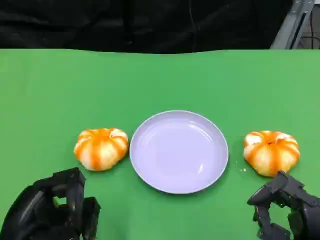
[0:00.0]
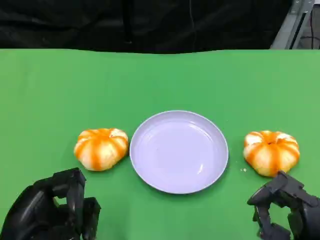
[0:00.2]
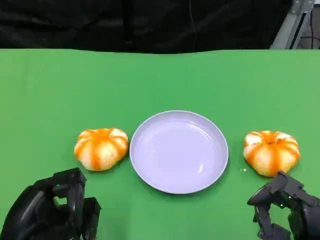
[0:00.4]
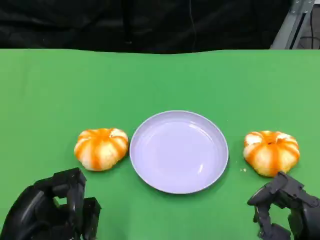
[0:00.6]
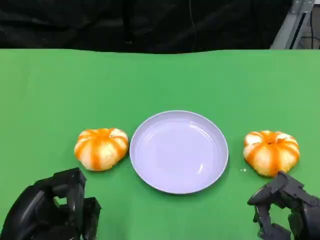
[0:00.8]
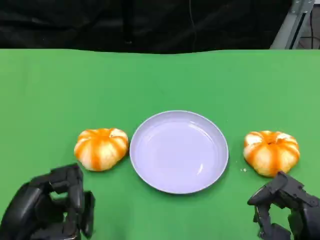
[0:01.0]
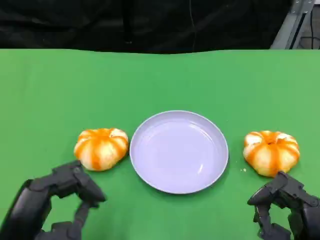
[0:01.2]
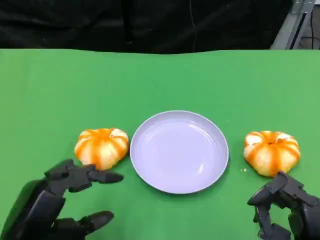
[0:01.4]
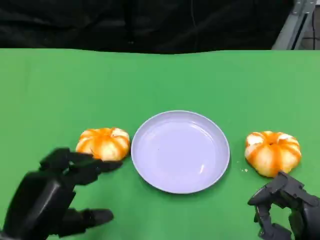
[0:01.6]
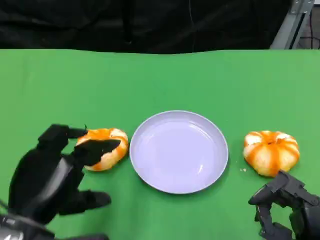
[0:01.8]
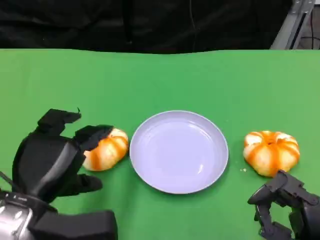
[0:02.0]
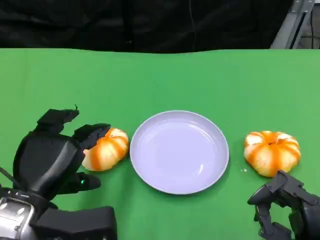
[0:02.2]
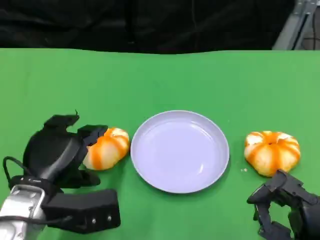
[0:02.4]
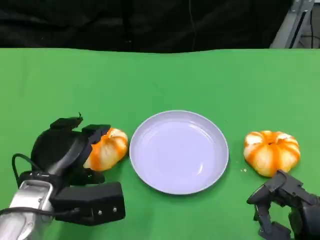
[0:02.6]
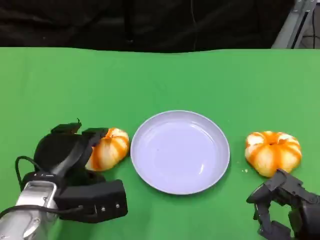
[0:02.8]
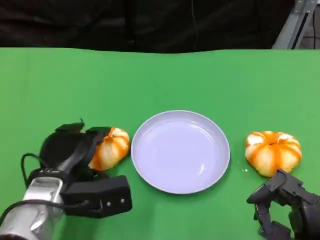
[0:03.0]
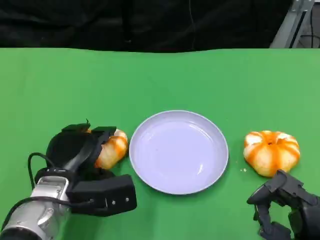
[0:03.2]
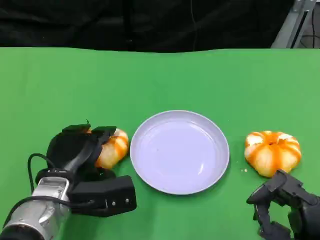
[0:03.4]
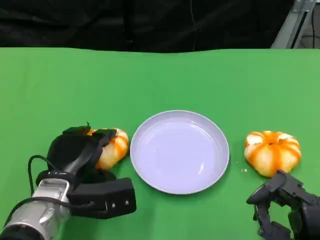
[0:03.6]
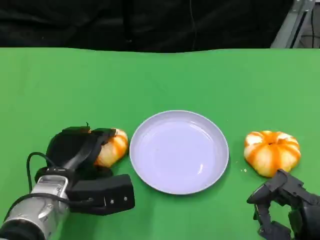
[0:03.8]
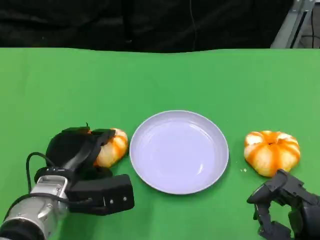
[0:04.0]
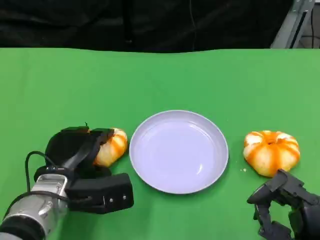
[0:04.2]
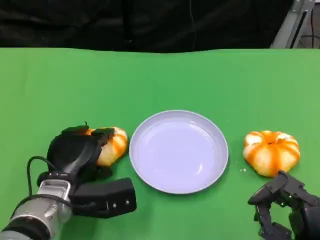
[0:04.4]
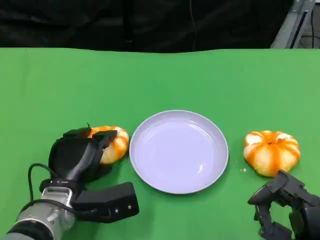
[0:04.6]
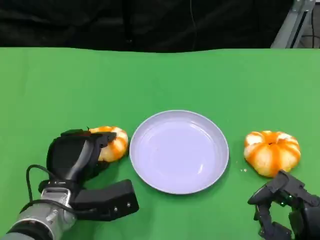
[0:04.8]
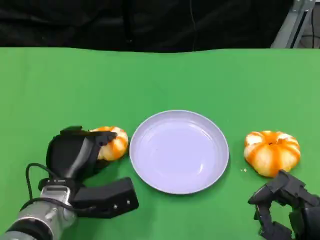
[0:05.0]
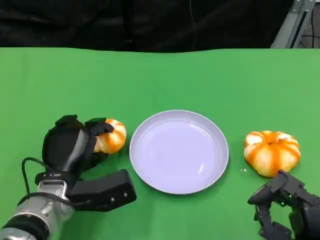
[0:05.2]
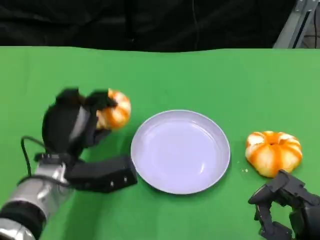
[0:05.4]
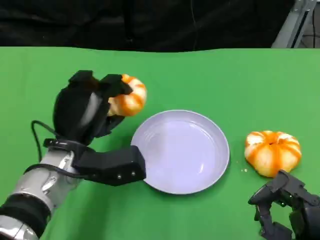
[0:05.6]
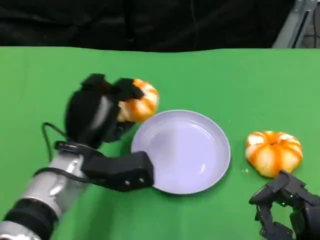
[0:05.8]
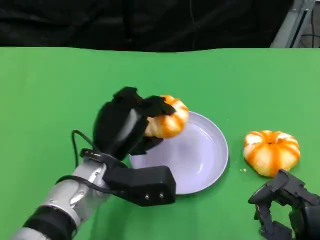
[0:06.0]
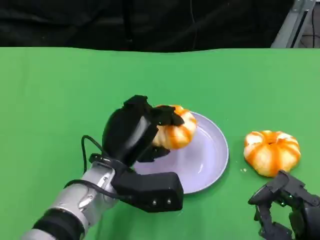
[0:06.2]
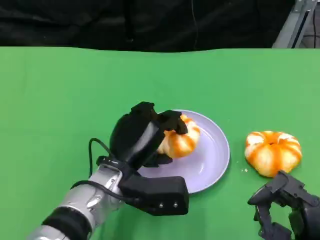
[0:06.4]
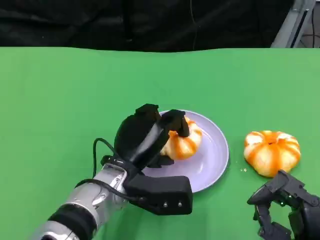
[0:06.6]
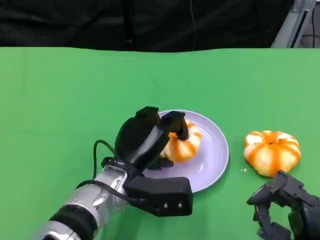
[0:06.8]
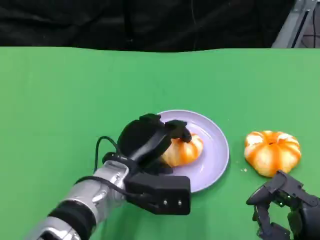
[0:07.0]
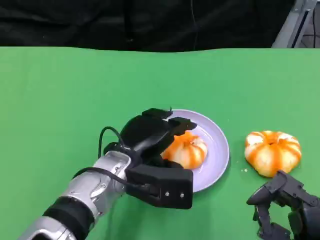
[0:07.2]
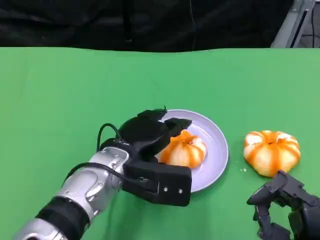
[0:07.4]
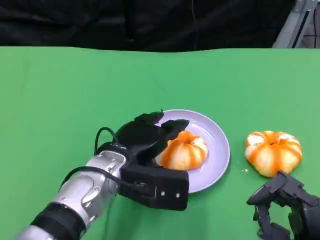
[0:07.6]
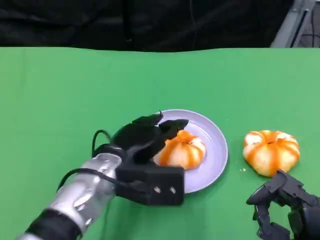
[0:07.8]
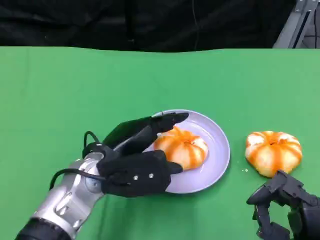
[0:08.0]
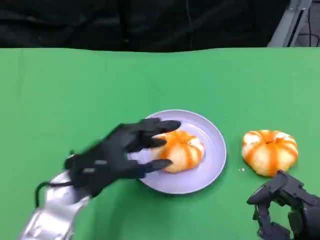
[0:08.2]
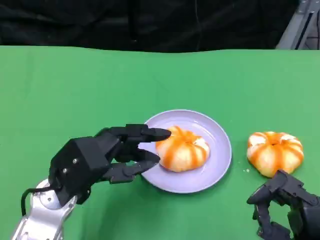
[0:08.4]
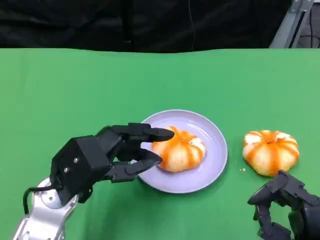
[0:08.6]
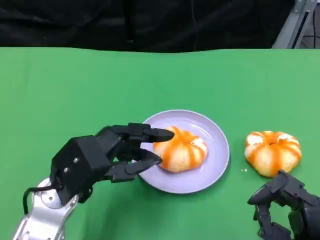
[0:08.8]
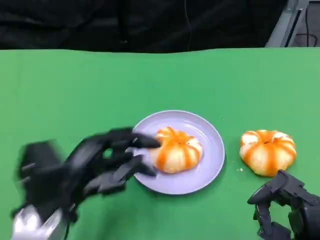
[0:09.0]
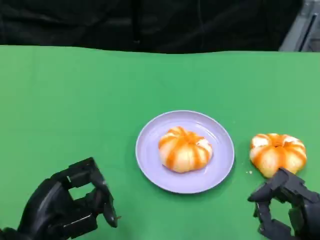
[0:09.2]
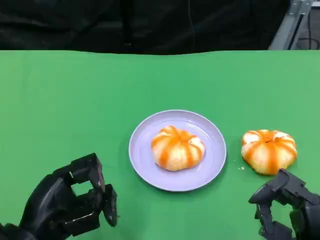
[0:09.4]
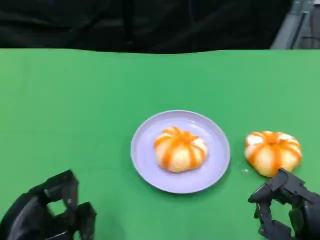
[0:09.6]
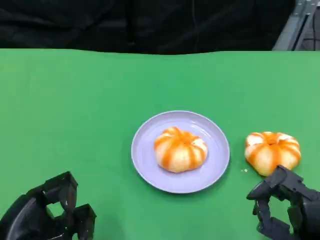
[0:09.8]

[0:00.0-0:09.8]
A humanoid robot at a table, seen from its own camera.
Task of the whole recording: Grasp the bread from the table and place it into the plate.
0:01.4 to 0:02.8: The left hand heads forward, covering some 10 cm.
0:02.8 to 0:04.2: The hands stay close to where they were, moving slightly.
0:04.2 to 0:05.6: The left hand heads upward, covering roughly 5 cm.
0:05.6 to 0:07.0: The left hand moves to the right, some 5 cm.
0:07.0 to 0:08.4: The left hand goes about 10 cm to the left.
0:08.4 to 0:09.8: The left hand travels backward and to the left by approximately 15 cm.

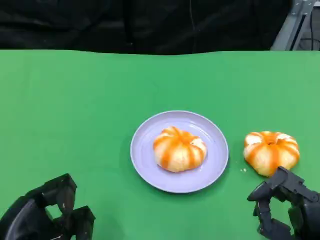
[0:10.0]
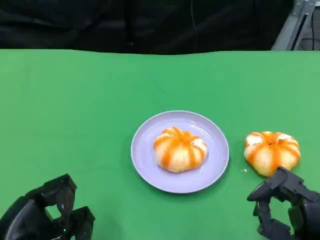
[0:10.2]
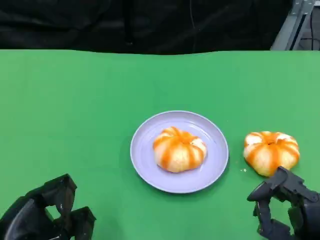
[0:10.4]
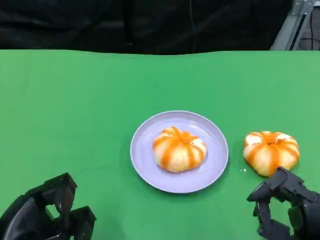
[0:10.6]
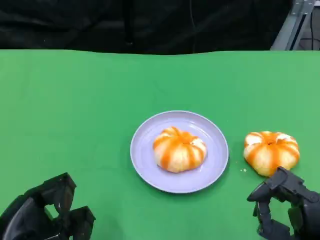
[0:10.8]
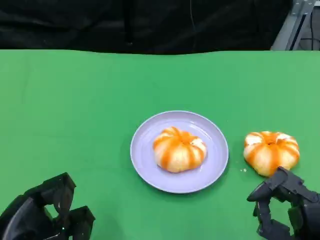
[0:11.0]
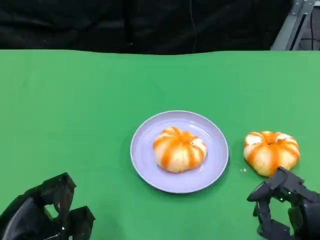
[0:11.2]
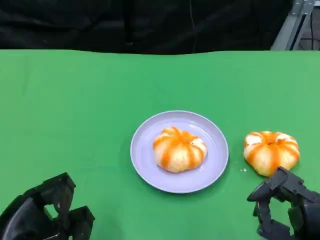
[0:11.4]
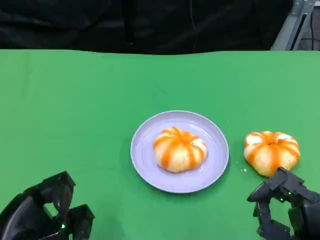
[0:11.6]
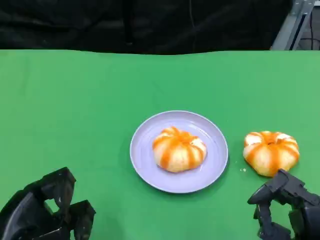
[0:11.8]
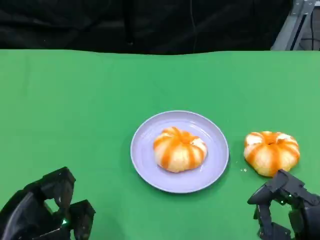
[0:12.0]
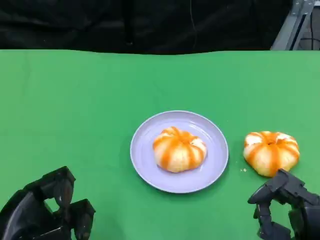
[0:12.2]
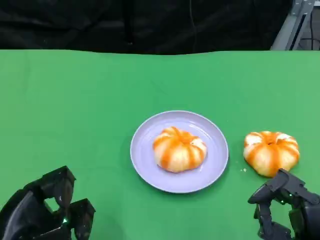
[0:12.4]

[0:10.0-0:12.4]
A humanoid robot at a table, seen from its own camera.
Task of the whole recording: Grasp the bread from the table and place it into the plate.
0:10.0 to 0:12.4: The two hands keep their place.

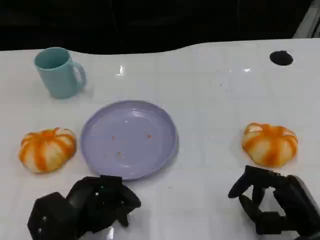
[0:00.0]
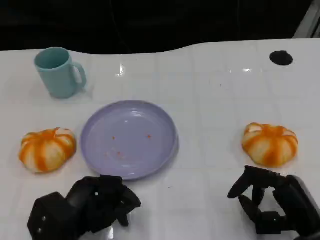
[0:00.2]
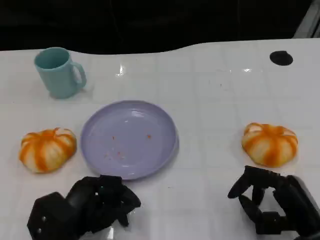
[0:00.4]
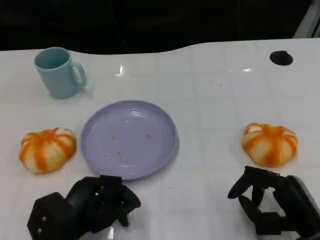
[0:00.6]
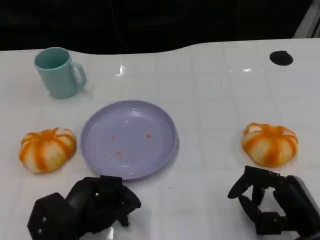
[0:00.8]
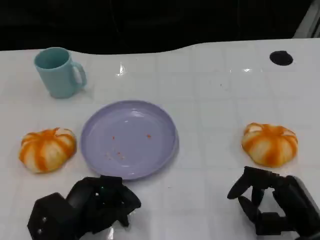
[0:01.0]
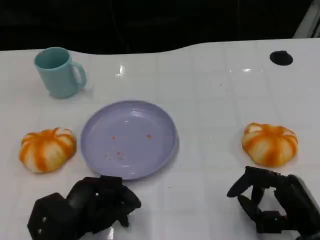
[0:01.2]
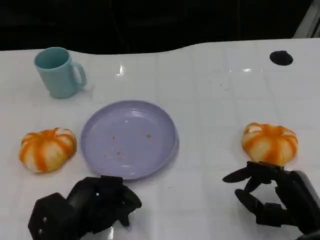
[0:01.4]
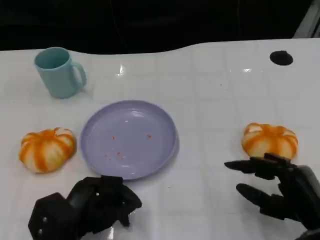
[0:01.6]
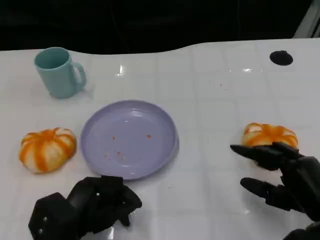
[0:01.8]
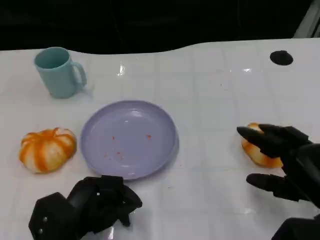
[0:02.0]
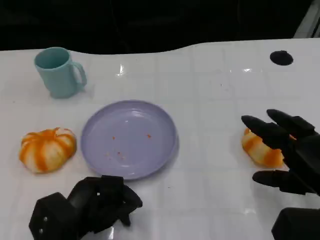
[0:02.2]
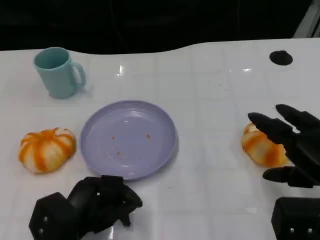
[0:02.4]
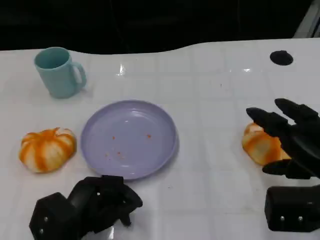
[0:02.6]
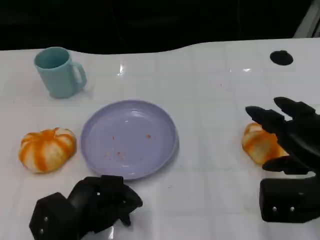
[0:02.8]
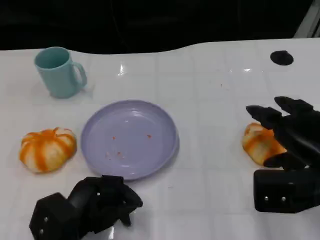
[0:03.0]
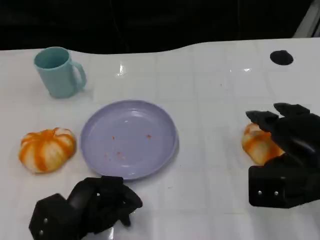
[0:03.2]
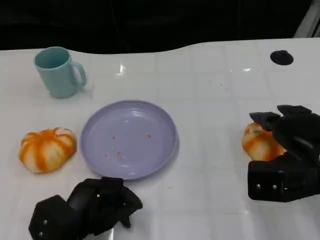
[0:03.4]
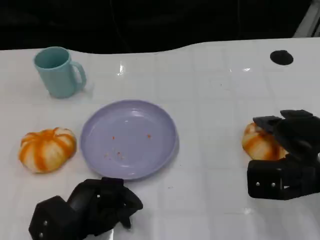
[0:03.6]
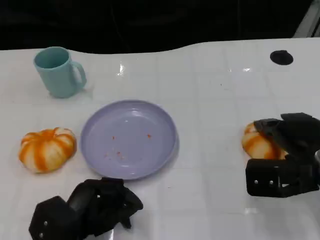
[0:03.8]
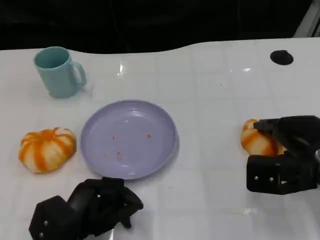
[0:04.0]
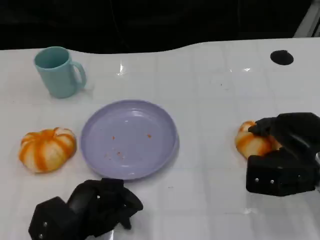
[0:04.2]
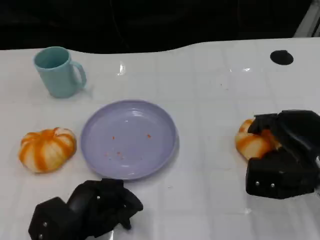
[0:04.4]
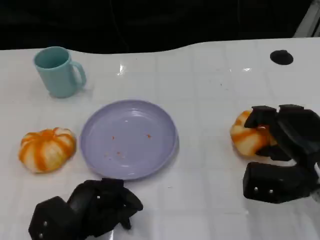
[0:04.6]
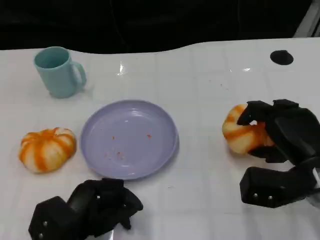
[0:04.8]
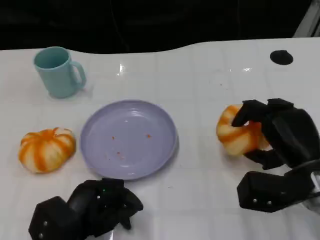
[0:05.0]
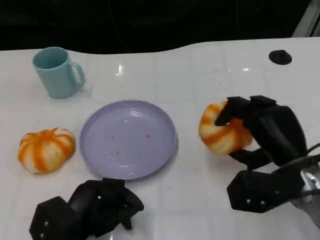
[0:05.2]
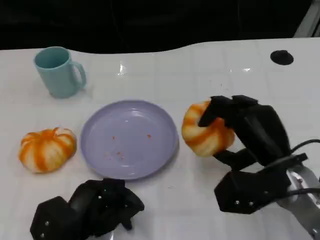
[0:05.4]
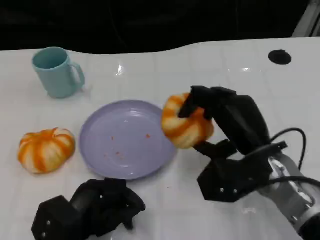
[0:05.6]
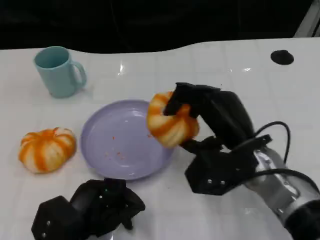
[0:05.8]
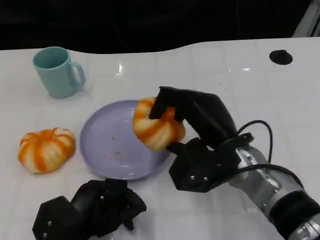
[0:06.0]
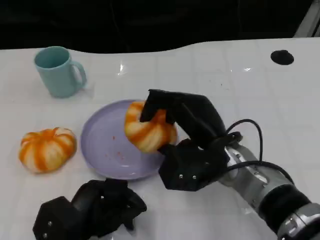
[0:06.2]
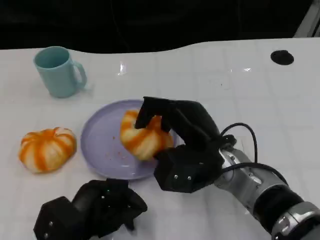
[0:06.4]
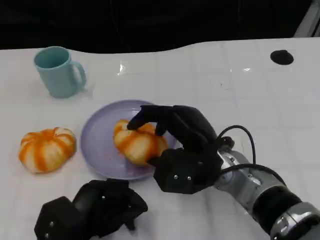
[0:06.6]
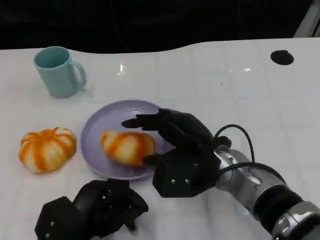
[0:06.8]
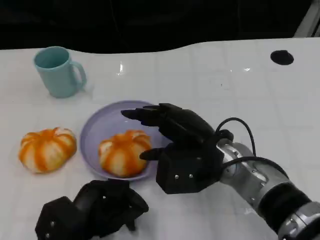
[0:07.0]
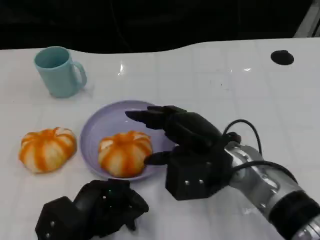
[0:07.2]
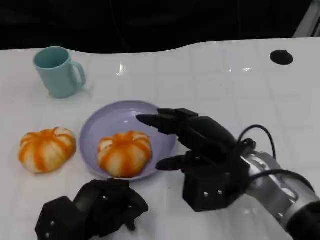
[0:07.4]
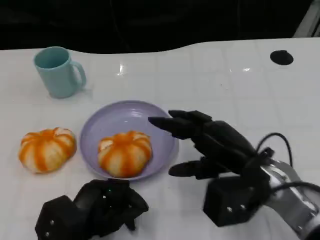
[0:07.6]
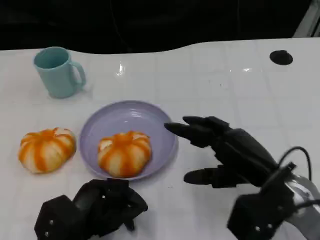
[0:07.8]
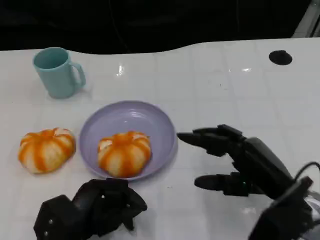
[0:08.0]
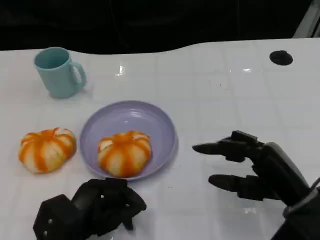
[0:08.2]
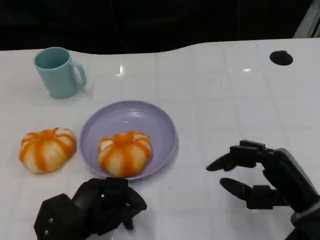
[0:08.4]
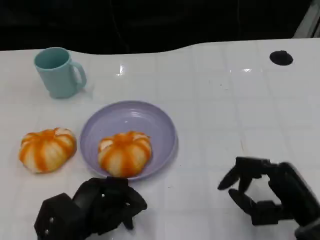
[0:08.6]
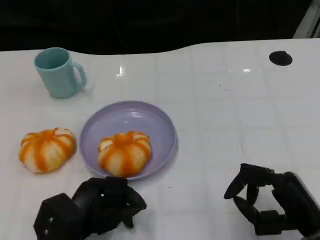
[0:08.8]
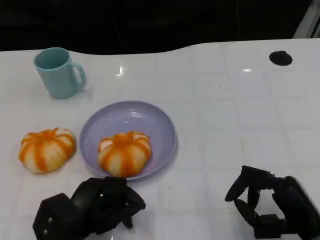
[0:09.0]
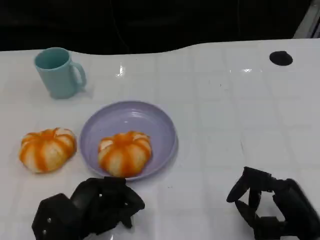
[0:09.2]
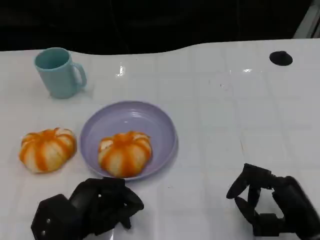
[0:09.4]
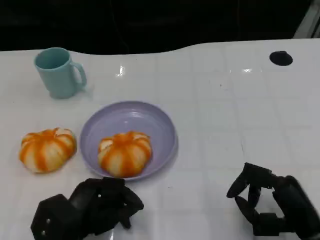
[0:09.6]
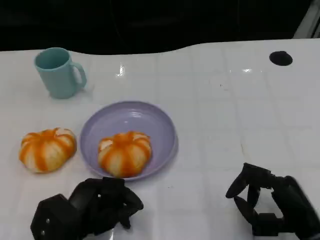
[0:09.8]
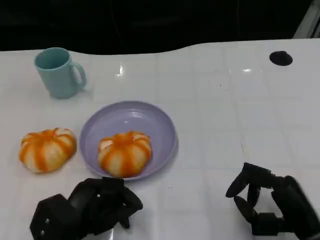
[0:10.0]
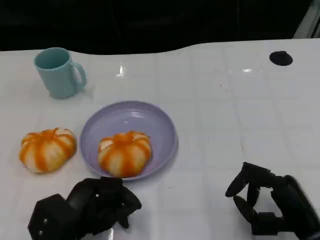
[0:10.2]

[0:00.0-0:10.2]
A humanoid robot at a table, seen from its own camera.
Task of the whole recording: Grasp the bread from the table and place it into the plate.
0:00.0 to 0:01.4: The hands move only a little.
0:01.4 to 0:03.0: The right hand heads upward and forward, covering about 10 cm.
0:03.0 to 0:04.4: The hands stay close to where they were, moving slightly.
0:04.4 to 0:05.8: The right hand goes approximately 10 cm to the left.
0:07.2 to 0:08.8: The right hand moves to the right, backward and downward, about 15 cm.
0:08.8 to 0:10.2: Both hands stay about where they are.
